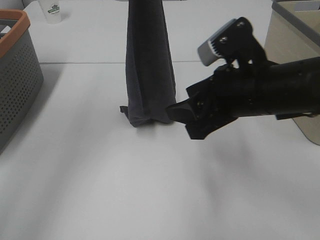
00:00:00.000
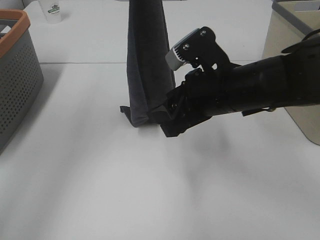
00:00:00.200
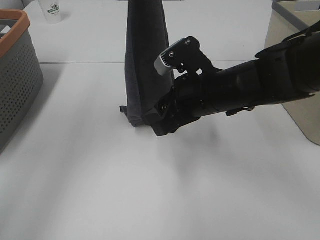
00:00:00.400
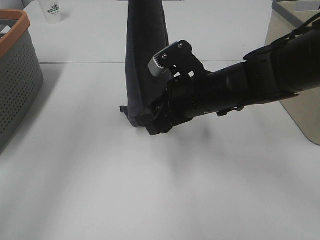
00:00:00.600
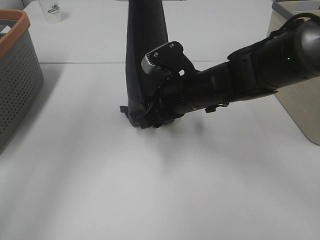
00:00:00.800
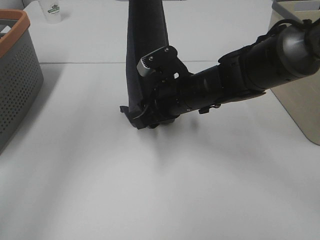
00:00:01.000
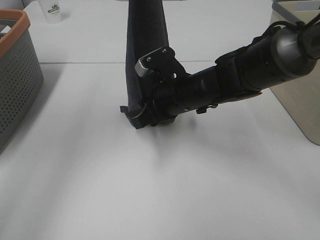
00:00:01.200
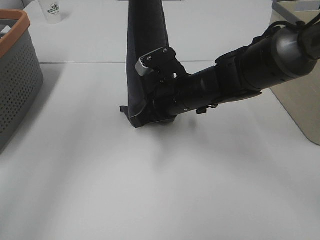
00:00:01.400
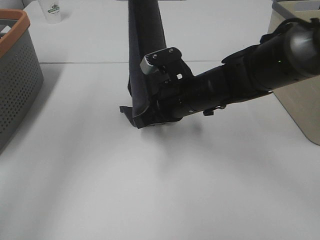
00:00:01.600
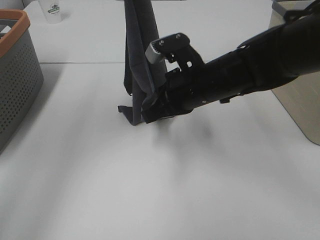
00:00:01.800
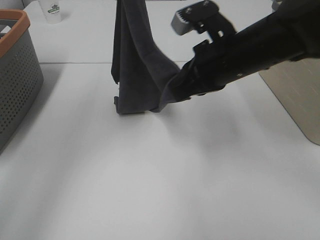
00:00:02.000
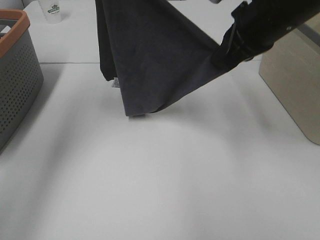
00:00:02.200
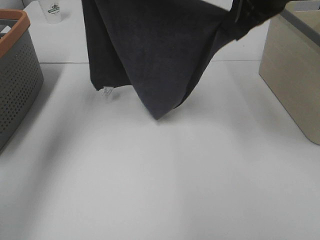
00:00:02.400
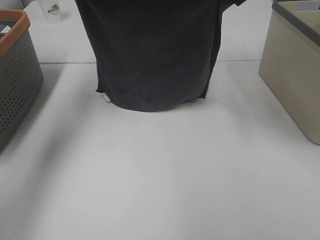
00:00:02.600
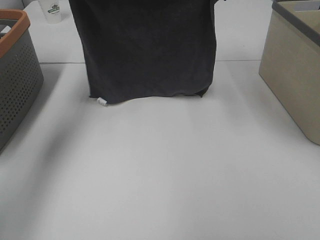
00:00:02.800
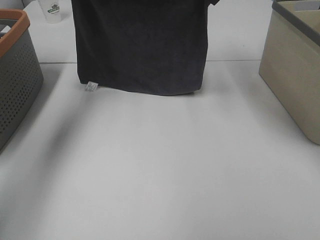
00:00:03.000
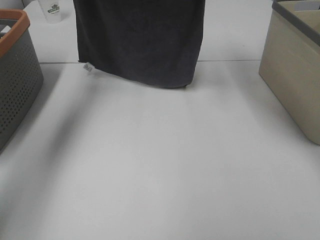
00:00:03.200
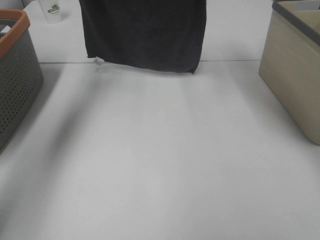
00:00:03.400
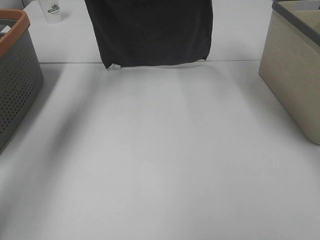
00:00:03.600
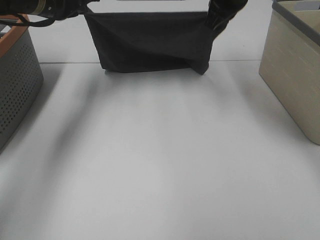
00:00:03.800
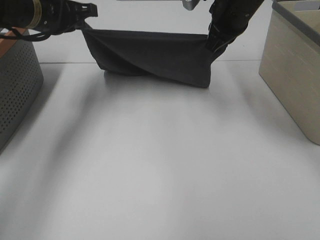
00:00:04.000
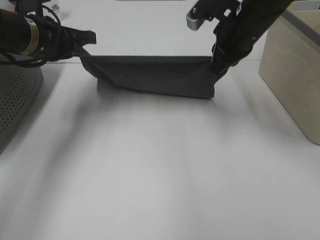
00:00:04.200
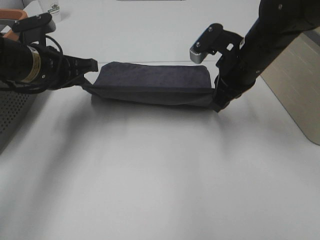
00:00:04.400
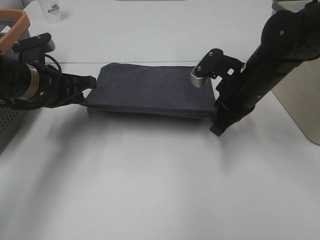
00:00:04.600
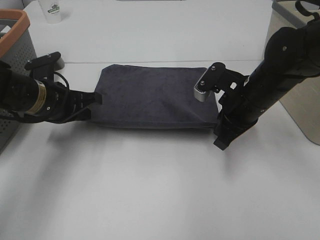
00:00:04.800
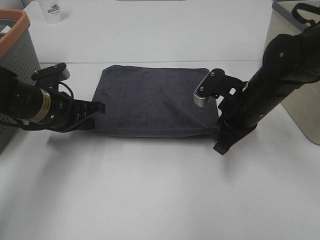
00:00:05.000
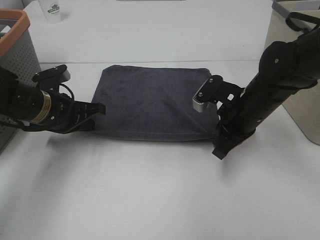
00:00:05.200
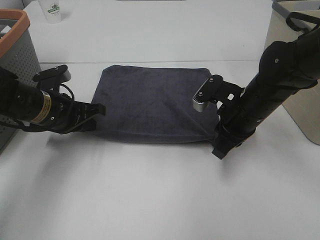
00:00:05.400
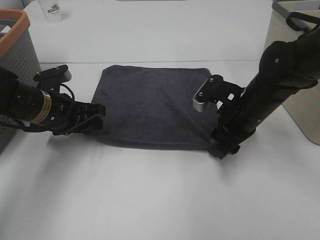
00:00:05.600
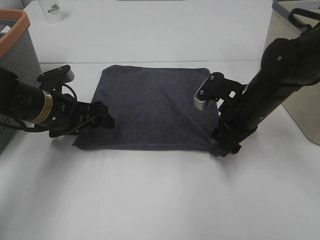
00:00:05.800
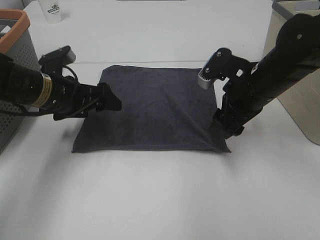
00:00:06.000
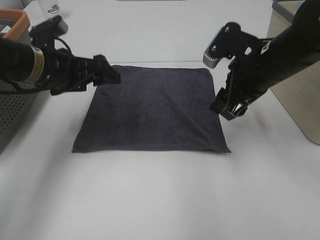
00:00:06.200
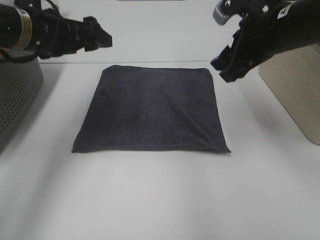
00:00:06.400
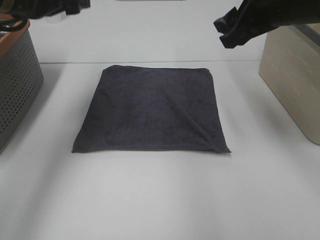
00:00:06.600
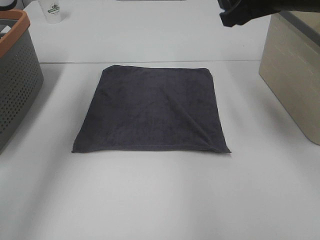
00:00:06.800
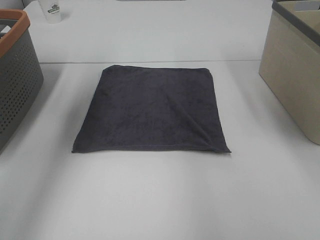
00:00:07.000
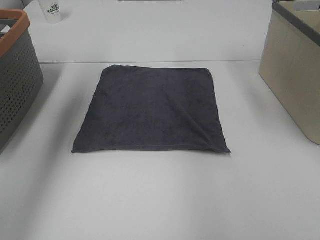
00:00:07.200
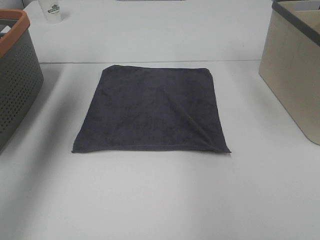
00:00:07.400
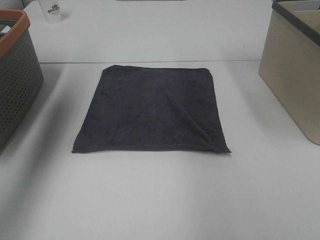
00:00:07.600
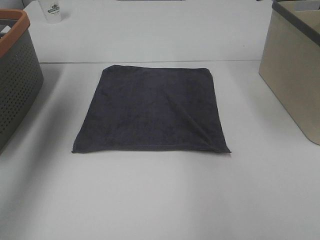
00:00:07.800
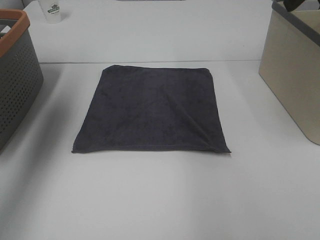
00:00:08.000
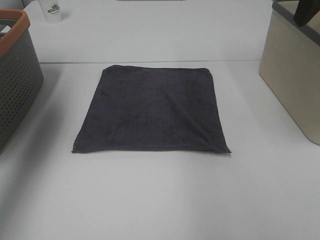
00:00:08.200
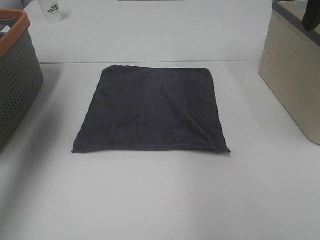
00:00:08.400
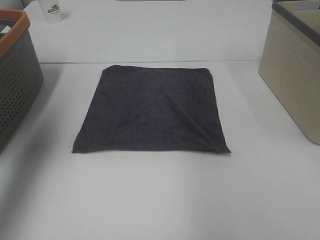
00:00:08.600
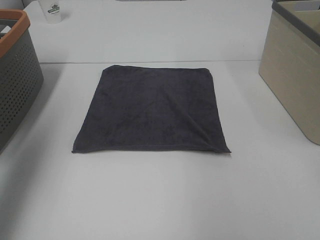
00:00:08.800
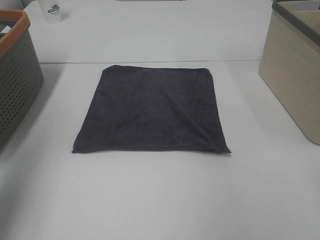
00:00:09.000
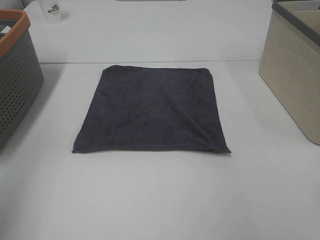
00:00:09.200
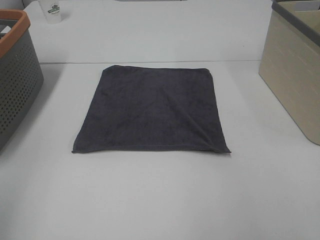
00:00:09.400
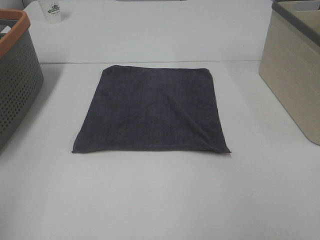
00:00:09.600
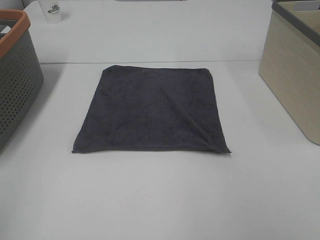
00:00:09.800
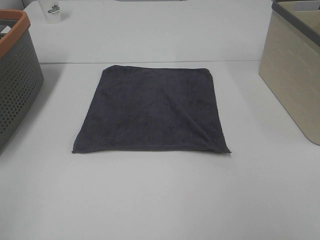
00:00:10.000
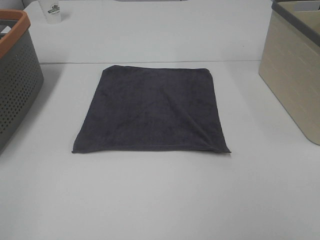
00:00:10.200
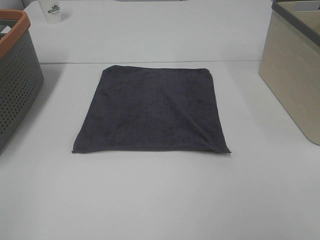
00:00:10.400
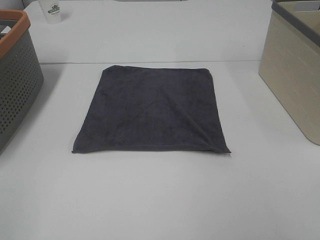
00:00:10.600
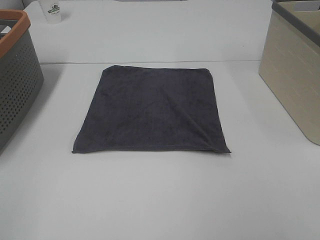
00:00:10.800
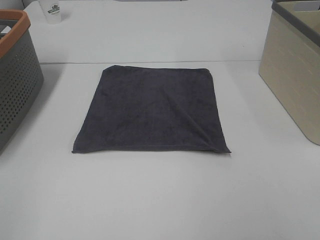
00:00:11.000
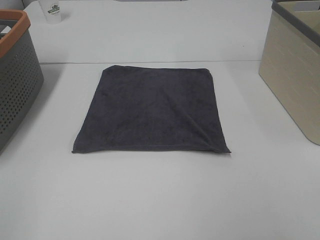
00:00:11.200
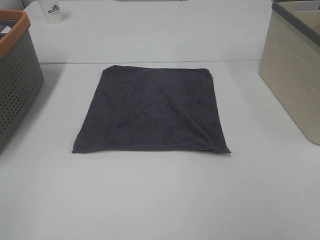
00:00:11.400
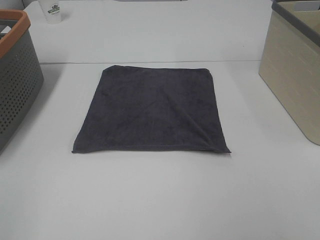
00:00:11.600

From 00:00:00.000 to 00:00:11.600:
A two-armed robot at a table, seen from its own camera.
Task of the whole recording: Remove the towel and place it.
Step, from 00:00:00.000 to 00:00:02.000: Right hand: spread the grey towel flat on the table.
From 00:00:00.000 to 00:00:01.400: The right gripper heads forward, downward and to the left, covering roughly 15 cm, and closes its fingers.
From 00:00:01.400 to 00:00:02.800: The right gripper shifts roughly 25 cm upward; the left gripper shifts roughly 10 cm to the left.
From 00:00:02.800 to 00:00:04.400: Both grippers move downward, some 15 cm.
From 00:00:04.400 to 00:00:05.800: The two grippers go approximately 5 cm downward. The right gripper opens up. Meanwhile the left gripper opens up.
From 00:00:05.800 to 00:00:07.200: The grippers both shift upward by roughly 25 cm.
From 00:00:07.200 to 00:00:08.800: The left gripper shifts roughly 15 cm backward.
From 00:00:08.800 to 00:00:10.200: The left gripper shifts roughly 20 cm backward.
